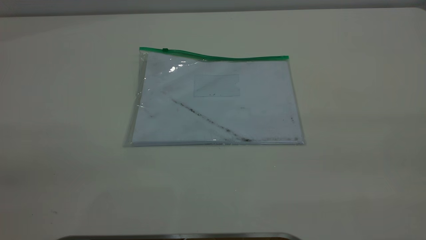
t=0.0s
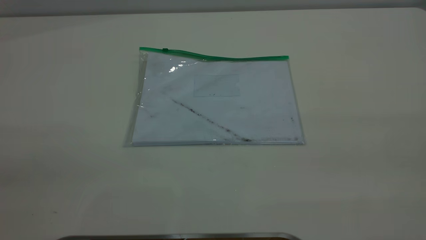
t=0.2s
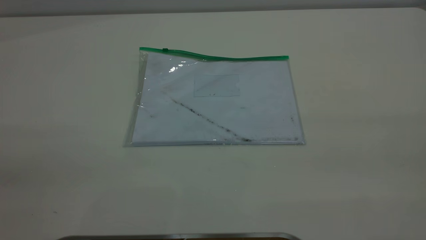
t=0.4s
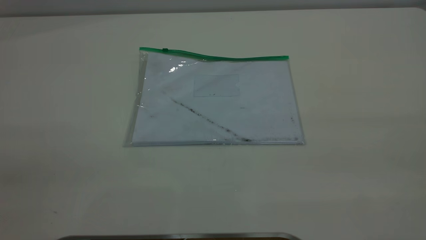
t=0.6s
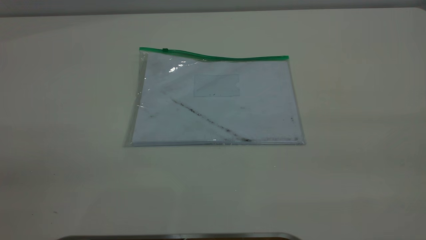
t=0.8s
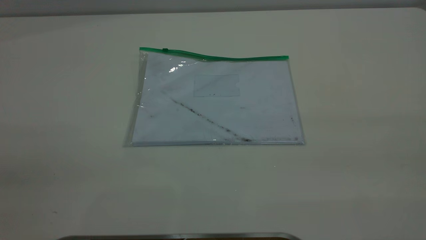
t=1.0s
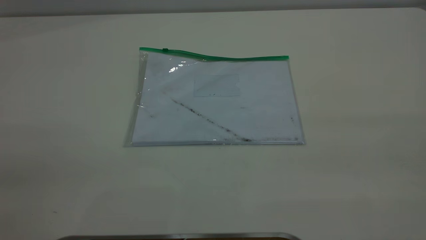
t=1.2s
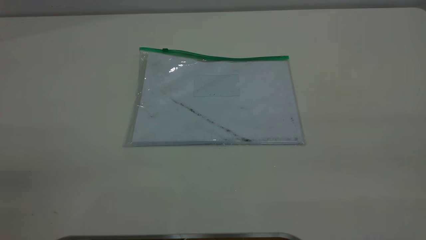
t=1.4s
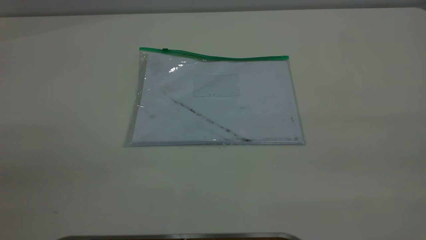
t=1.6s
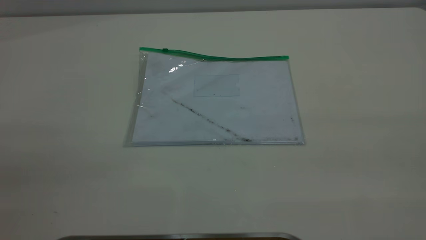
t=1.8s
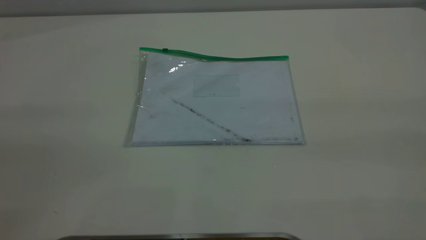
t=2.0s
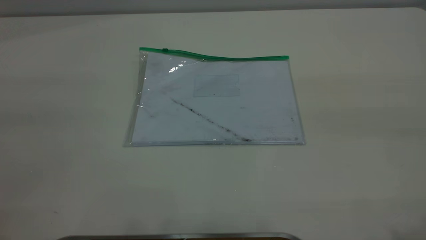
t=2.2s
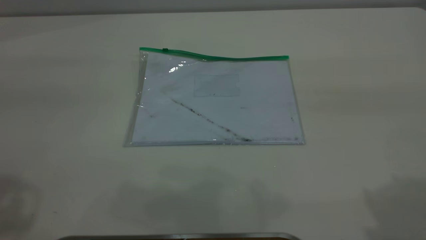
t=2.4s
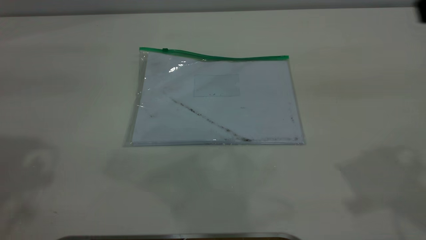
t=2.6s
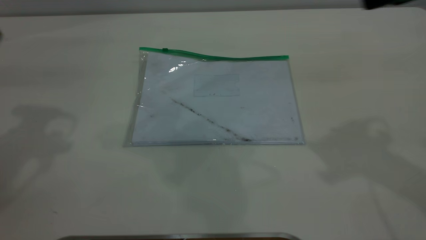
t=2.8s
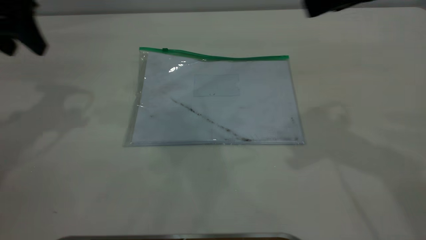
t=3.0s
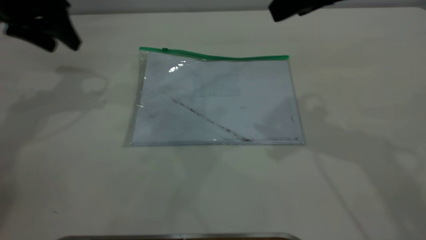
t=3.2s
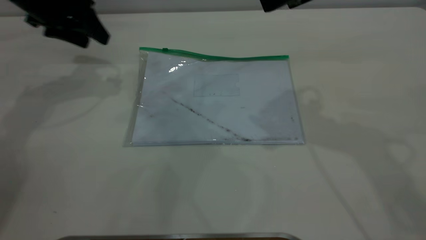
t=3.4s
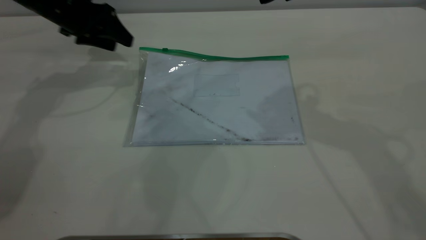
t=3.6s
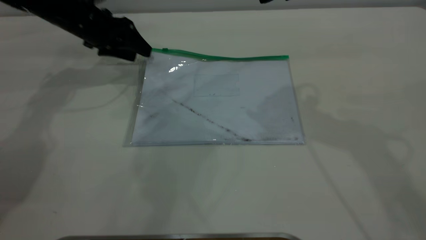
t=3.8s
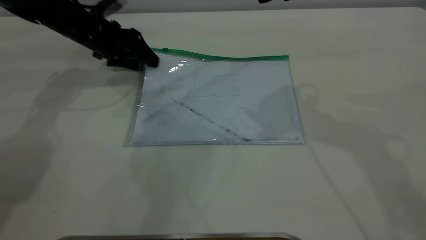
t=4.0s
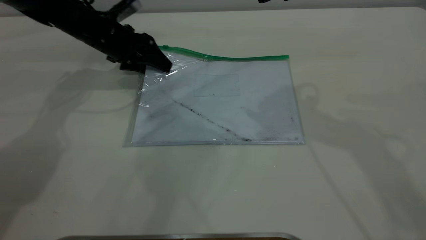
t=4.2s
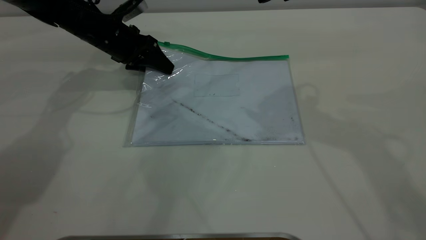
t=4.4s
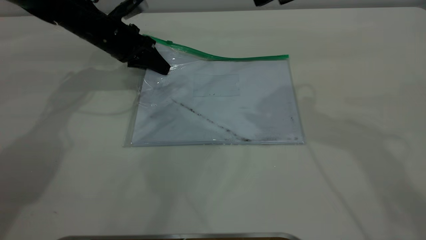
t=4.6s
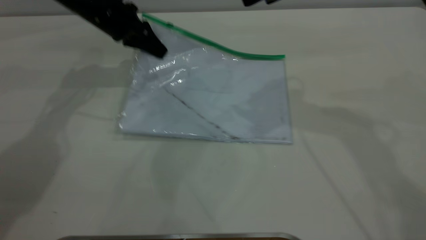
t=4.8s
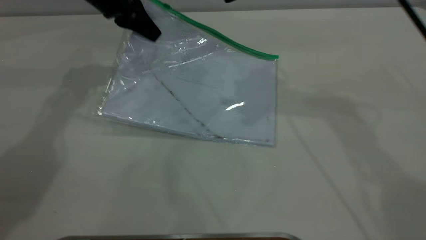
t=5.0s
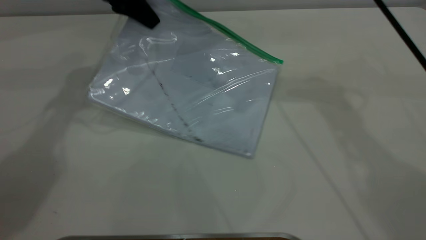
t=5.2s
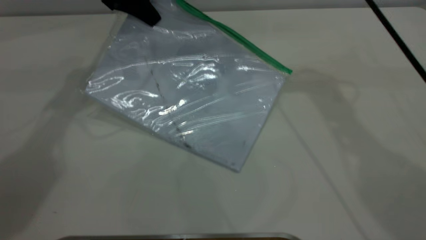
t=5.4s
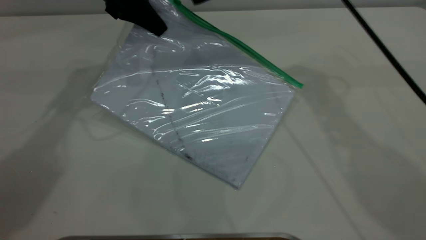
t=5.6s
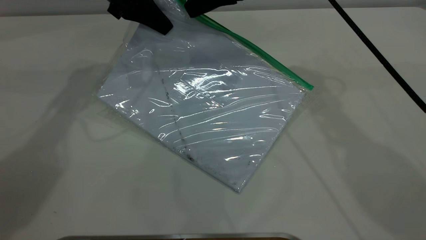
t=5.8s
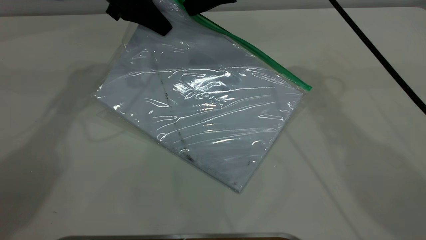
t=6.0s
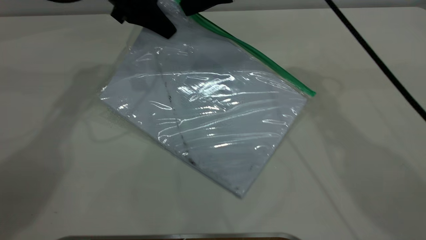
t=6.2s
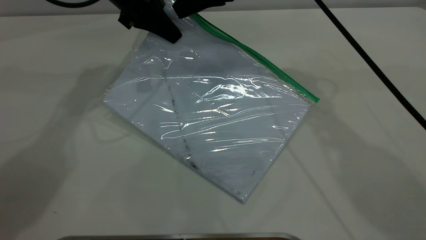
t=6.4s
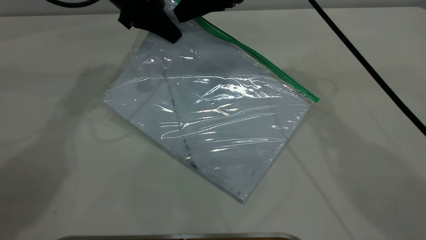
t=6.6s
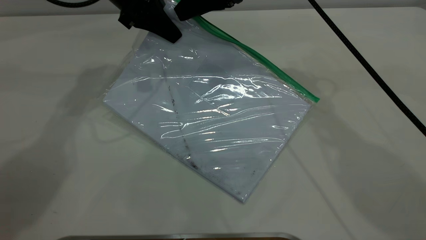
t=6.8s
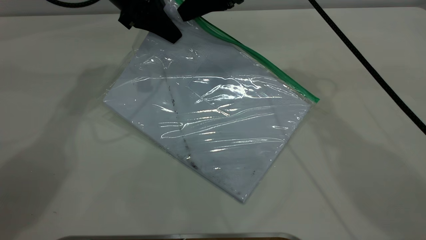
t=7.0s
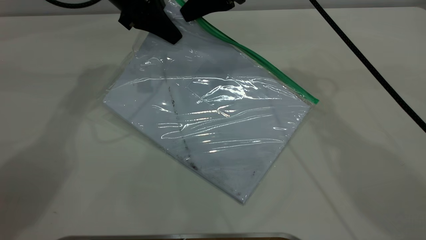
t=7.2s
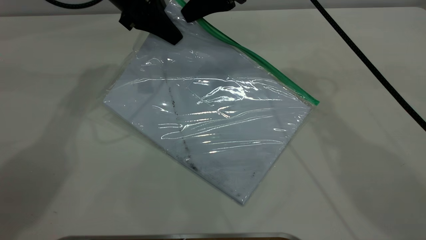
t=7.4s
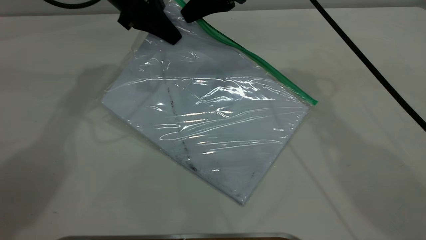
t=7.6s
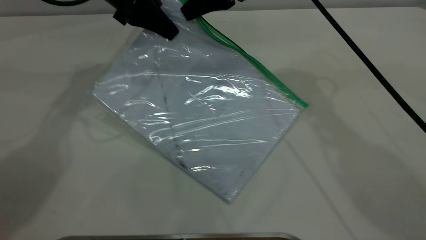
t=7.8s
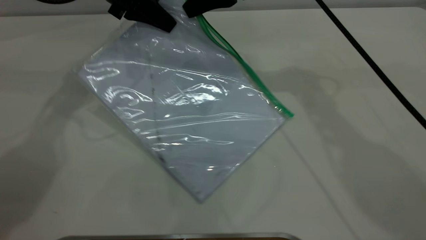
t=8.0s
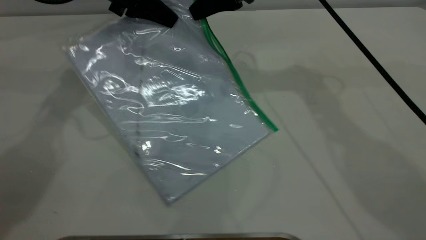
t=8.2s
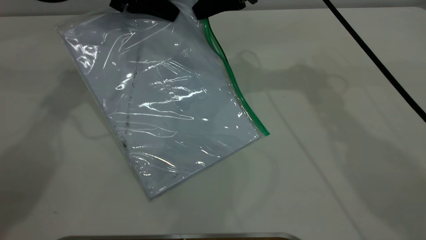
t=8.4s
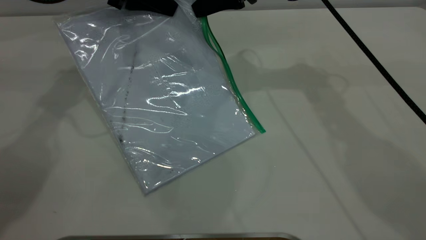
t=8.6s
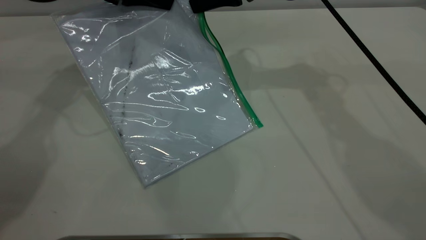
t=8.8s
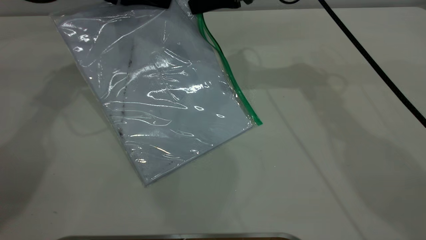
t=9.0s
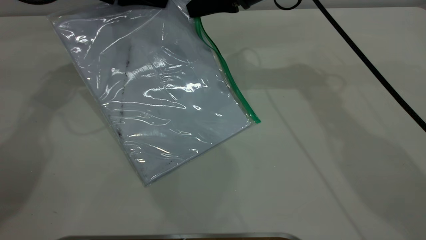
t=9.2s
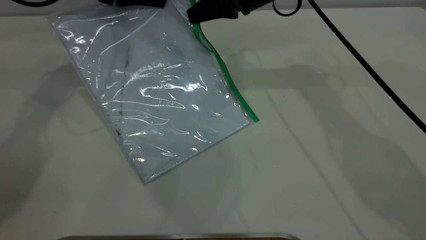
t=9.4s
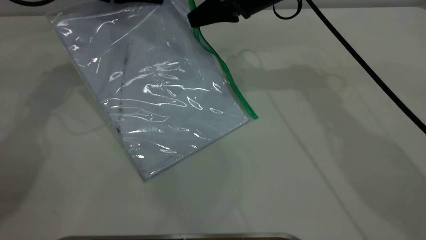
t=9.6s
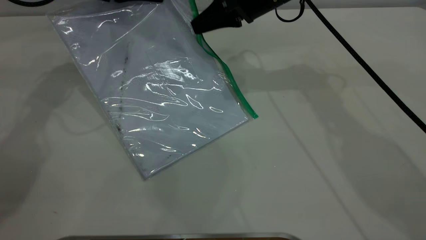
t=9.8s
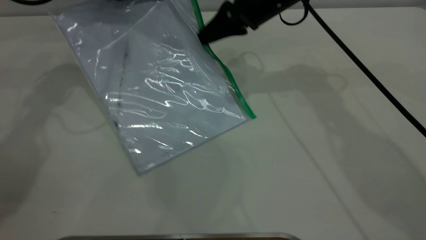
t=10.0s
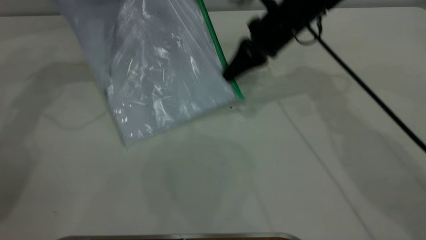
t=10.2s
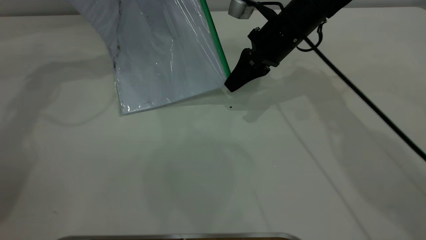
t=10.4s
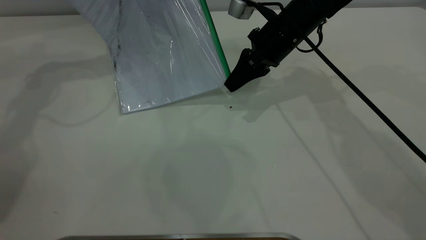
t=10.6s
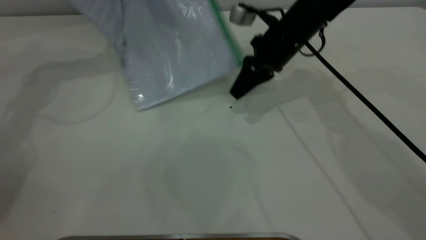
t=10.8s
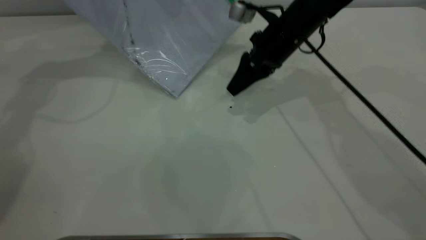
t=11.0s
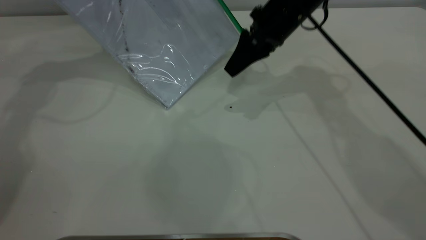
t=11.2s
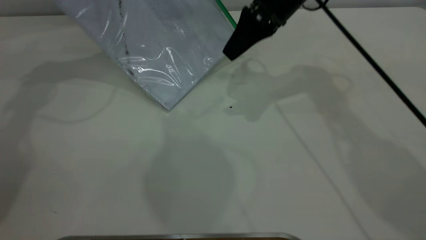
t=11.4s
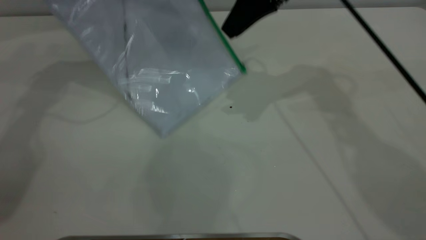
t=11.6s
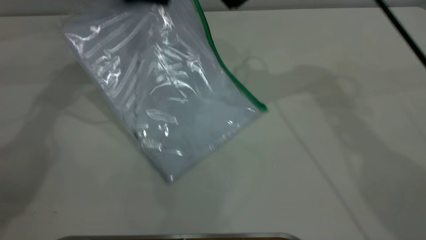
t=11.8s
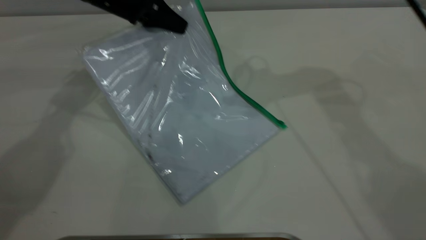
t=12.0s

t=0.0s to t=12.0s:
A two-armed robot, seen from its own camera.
Step, t=0.0s to t=4.6s: Pick up the transparent plastic bag with the left gripper.
Step, t=4.8s to t=11.4s: Pulling up the zipper on the transparent plastic bag with the right gripper to close it.
t=0.0s to t=1.6s: Neither gripper changes place.
t=1.6s to t=3.0s: The two grippers go approximately 35 cm forward.
t=3.0s to t=4.4s: The left gripper goes about 20 cm downward, forward and to the right, and closes its fingers, while the right gripper ends up roughly 5 cm from where it was.
t=4.4s to t=6.0s: The right gripper heads forward, to the left and downward, covering some 15 cm, while the left gripper shifts roughly 10 cm upward, and closes.
t=6.0s to t=7.6s: The right gripper closes up.
t=9.0s to t=10.4s: The right gripper heads downward, covering some 5 cm, while the left gripper is displaced upward by about 5 cm.
t=10.4s to t=12.0s: The right gripper goes some 20 cm upward, and opens its fingers. The left gripper moves downward and to the right, about 15 cm.

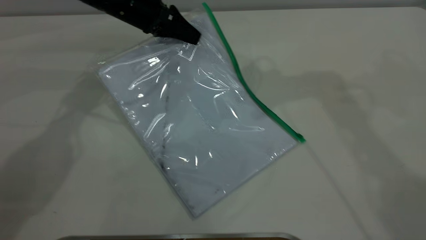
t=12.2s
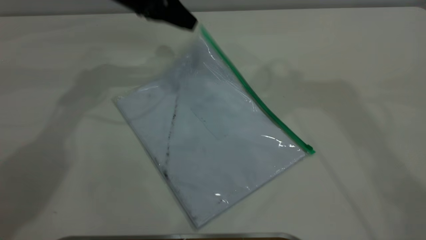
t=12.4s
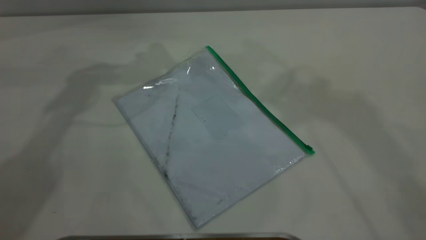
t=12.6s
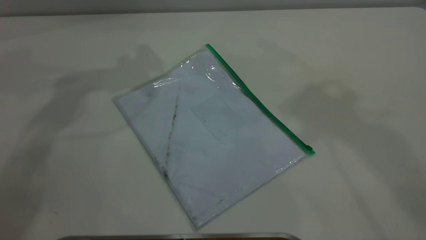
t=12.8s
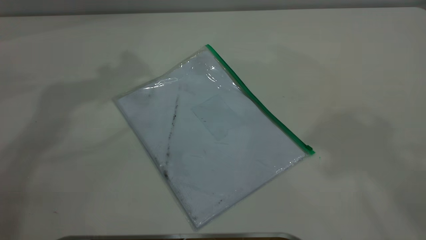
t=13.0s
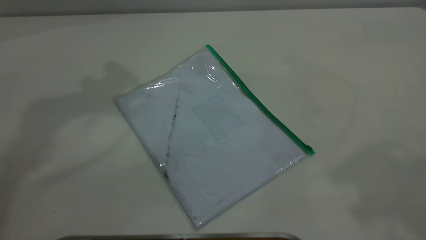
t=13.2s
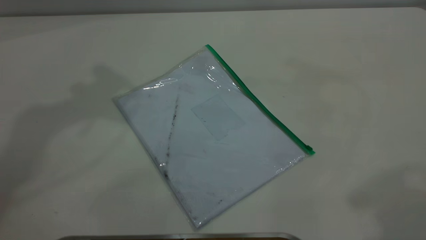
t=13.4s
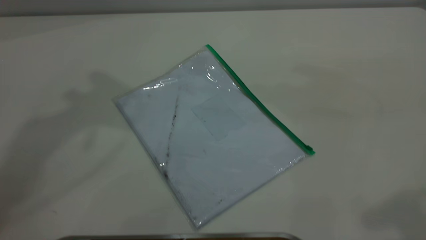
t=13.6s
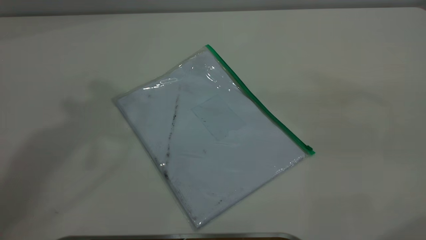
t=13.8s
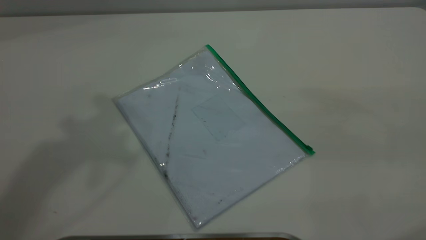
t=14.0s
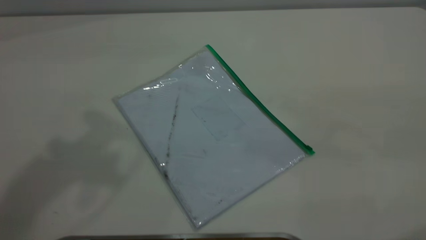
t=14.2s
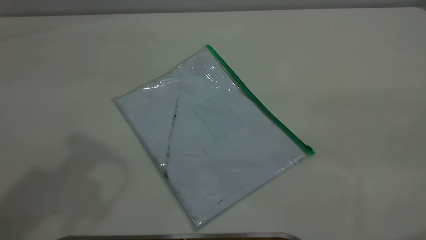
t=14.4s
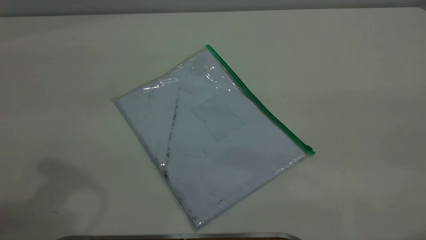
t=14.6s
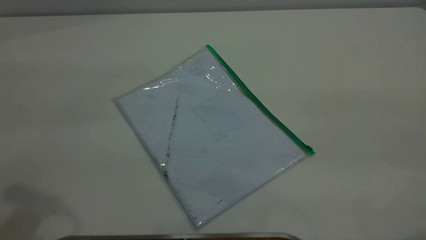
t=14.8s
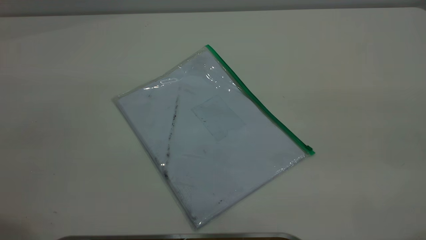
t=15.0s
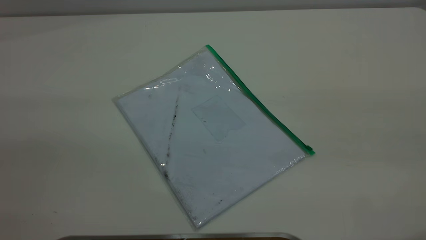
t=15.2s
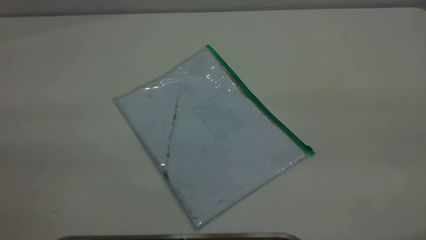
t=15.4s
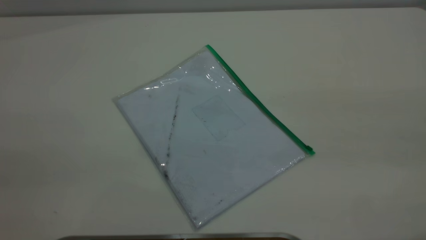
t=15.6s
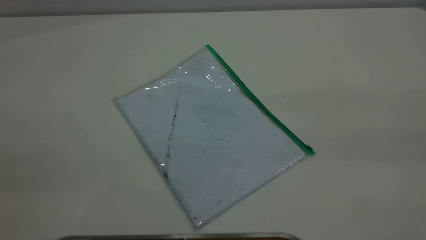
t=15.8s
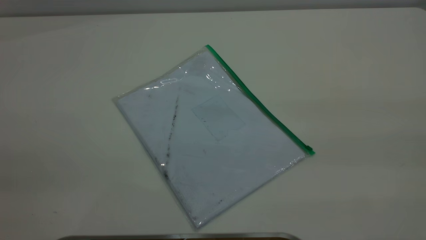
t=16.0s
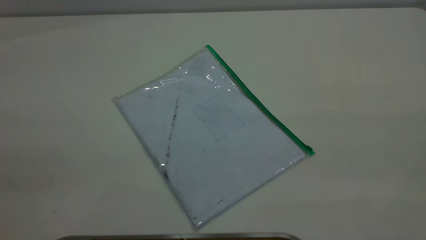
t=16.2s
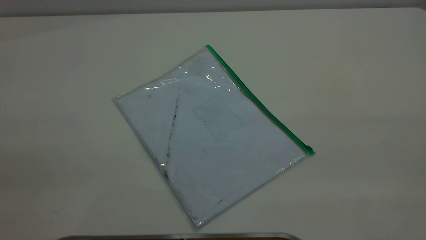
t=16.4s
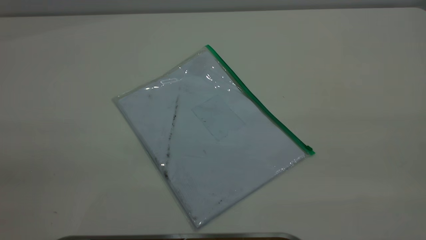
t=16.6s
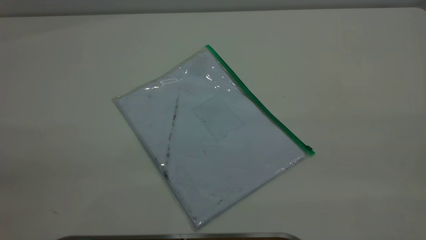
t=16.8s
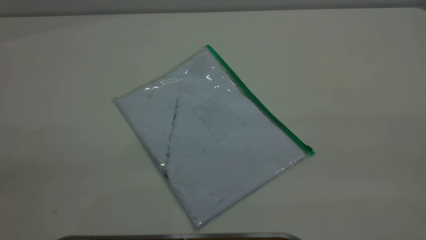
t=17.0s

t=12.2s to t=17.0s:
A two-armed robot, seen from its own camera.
t=12.2s to t=13.8s: The left gripper moves upward and backward, roughly 40 cm. Meanwhile the right gripper shifts some 35 cm backward and to the right.
